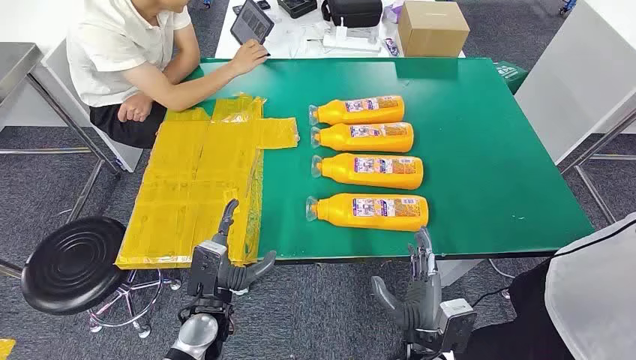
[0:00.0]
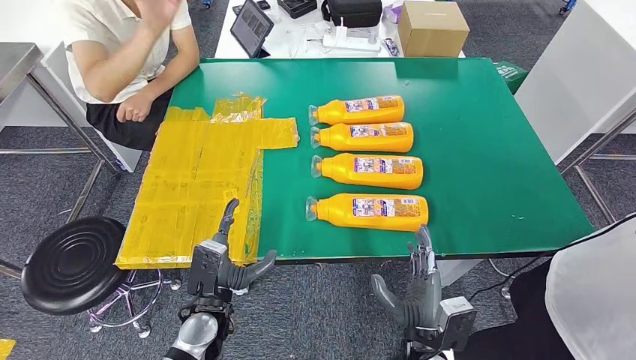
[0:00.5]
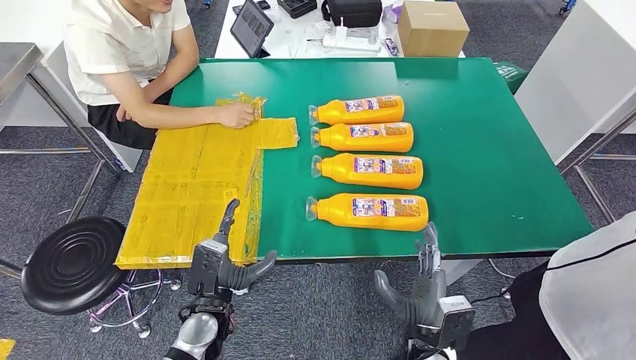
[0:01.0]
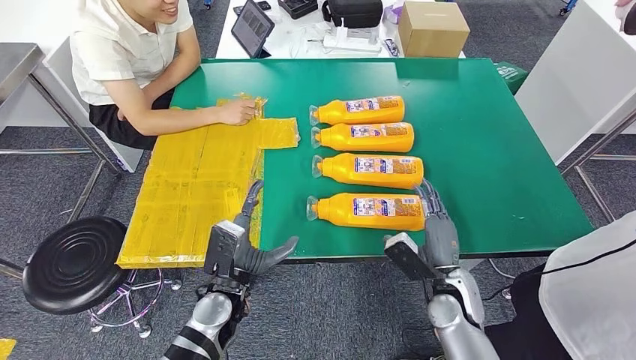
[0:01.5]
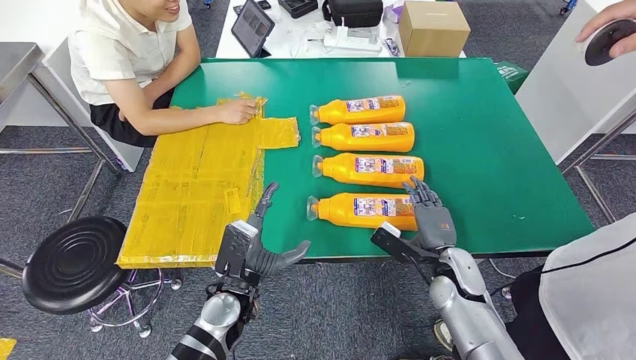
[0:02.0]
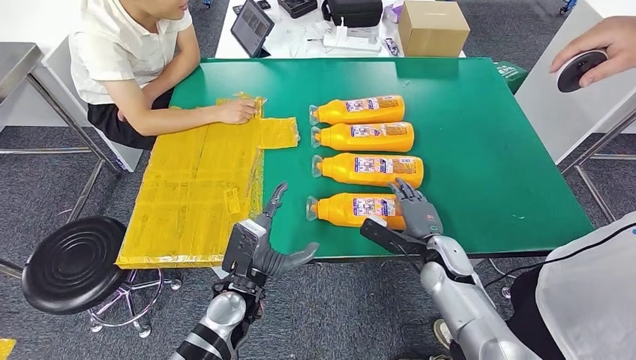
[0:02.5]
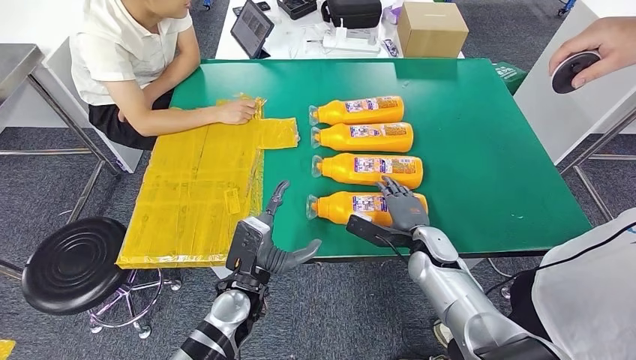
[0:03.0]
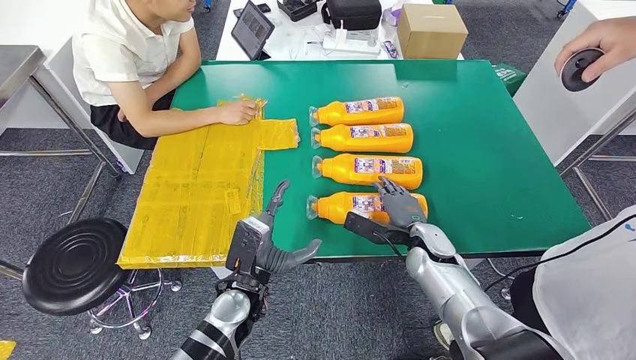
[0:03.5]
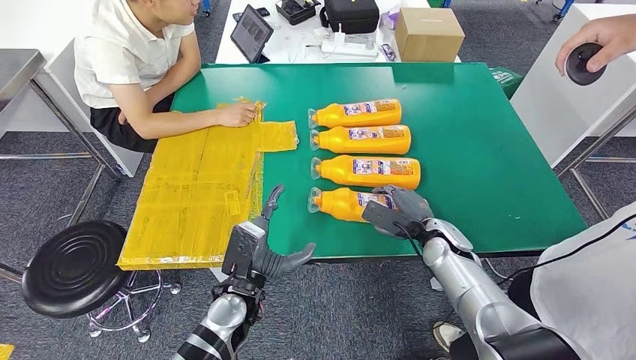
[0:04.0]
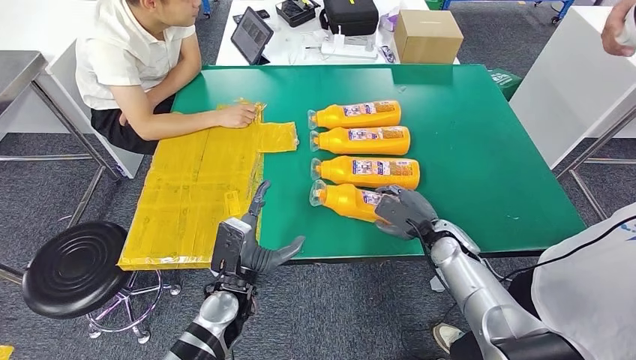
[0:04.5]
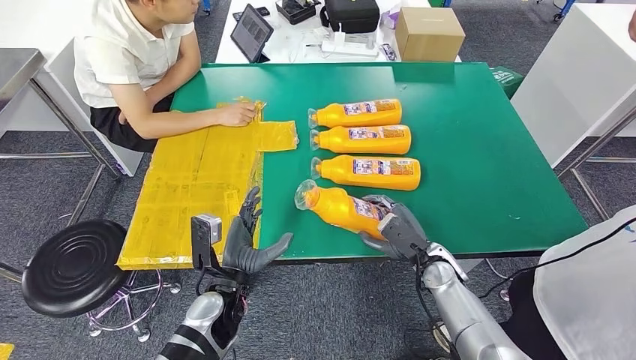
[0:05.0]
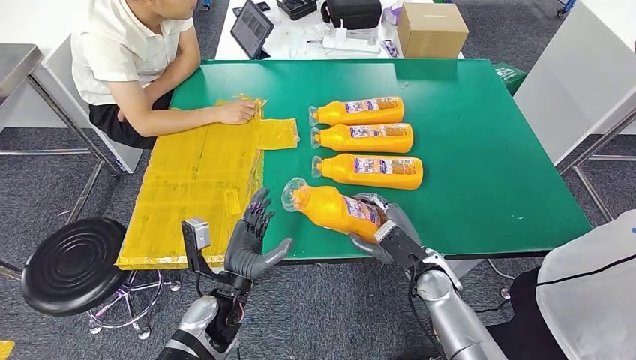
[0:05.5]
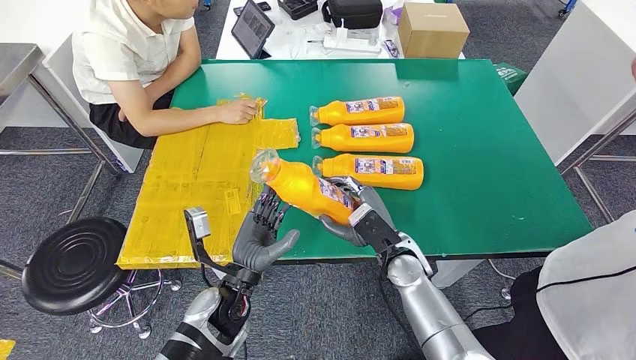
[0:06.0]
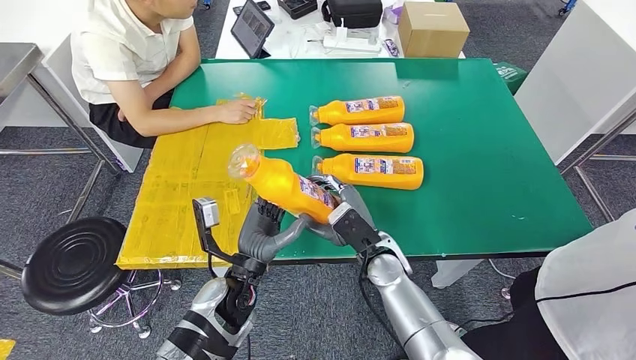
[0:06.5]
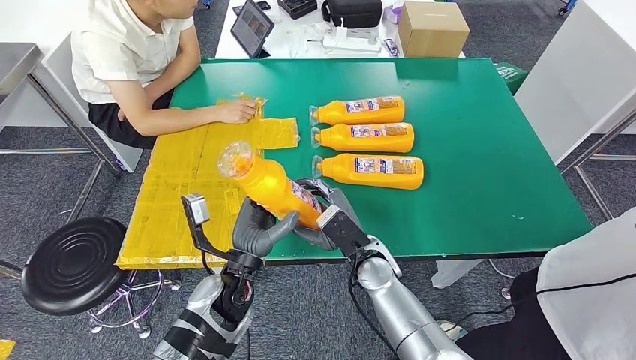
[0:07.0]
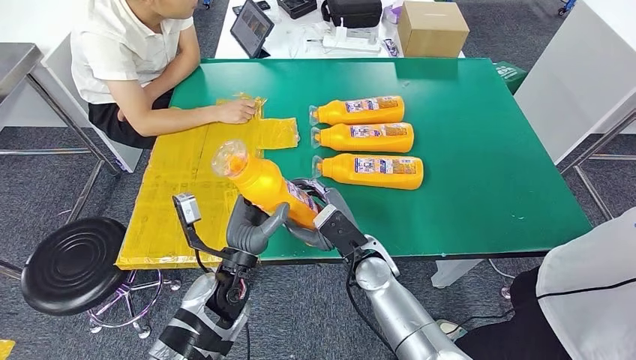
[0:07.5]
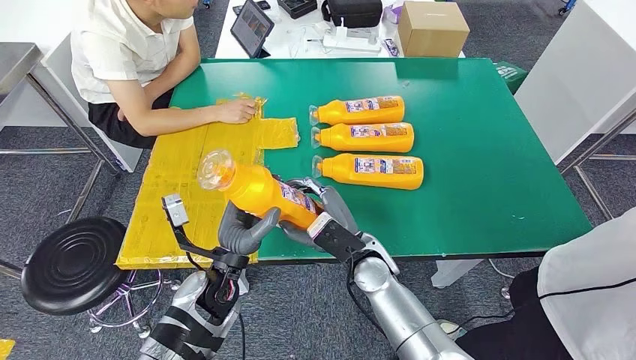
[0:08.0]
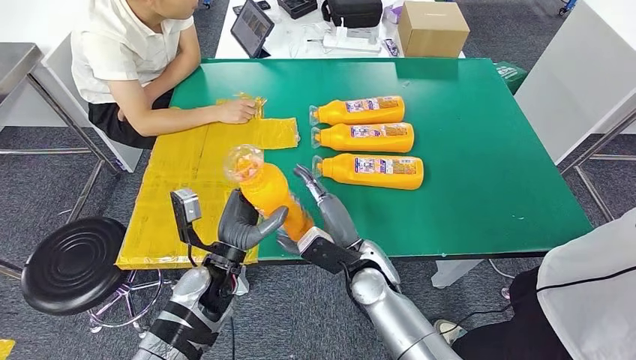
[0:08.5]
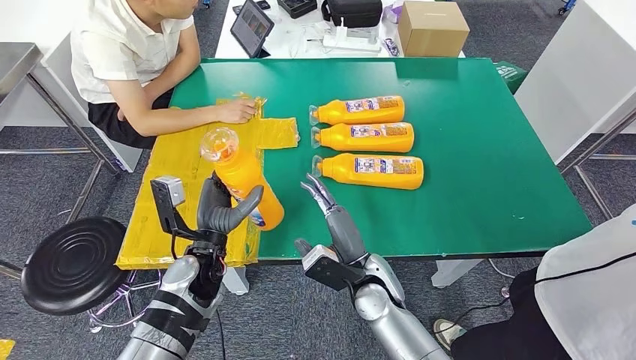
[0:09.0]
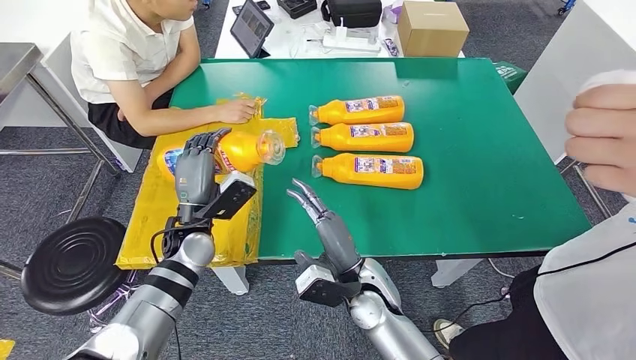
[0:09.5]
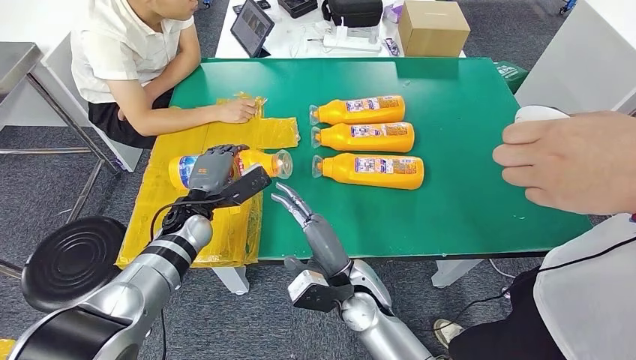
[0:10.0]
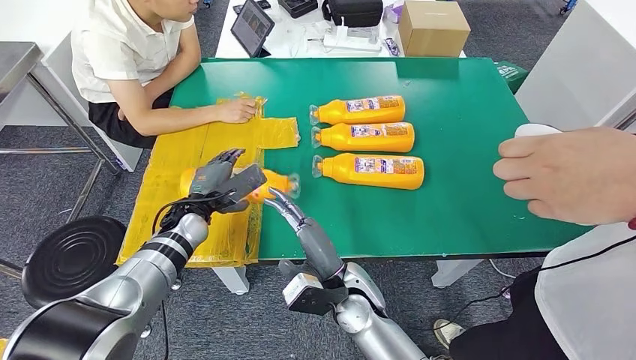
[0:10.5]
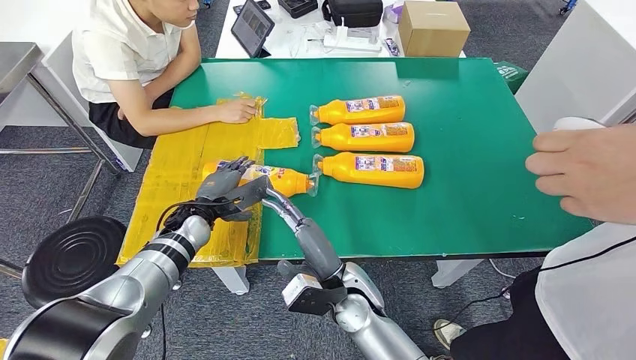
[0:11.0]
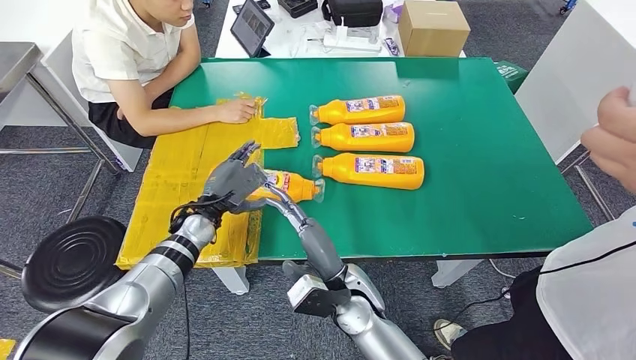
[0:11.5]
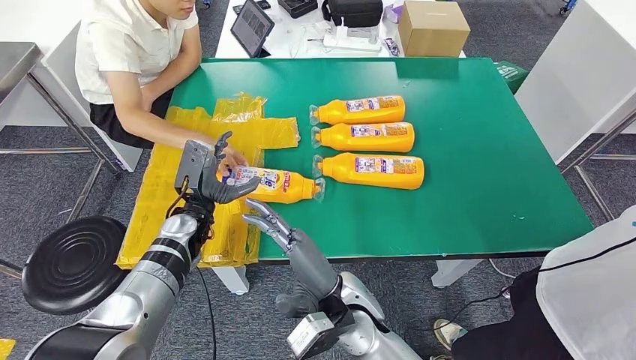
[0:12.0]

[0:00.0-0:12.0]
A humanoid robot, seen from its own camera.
Step, 0:00.0 to 0:05.0: Take the fast-moving consumer goods bottle from the table.
Step, 0:06.0 to 0:12.0: Flip the fast-moving consumer goods bottle to the front side.
0:06.0 to 0:08.0: The right hand travels to the left by approximately 5 cm.
0:10.0 to 0:12.0: The right hand shifts by roughly 5 cm.

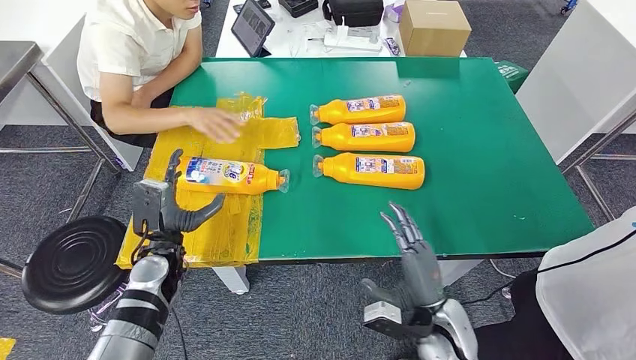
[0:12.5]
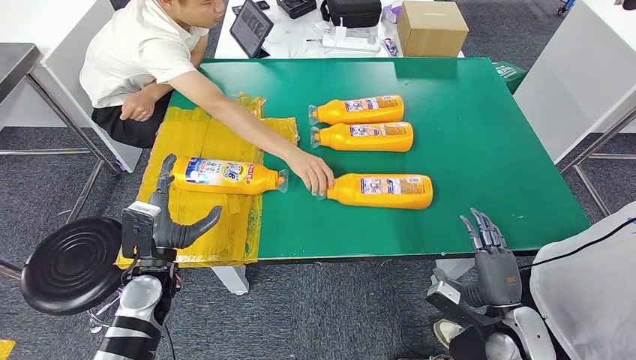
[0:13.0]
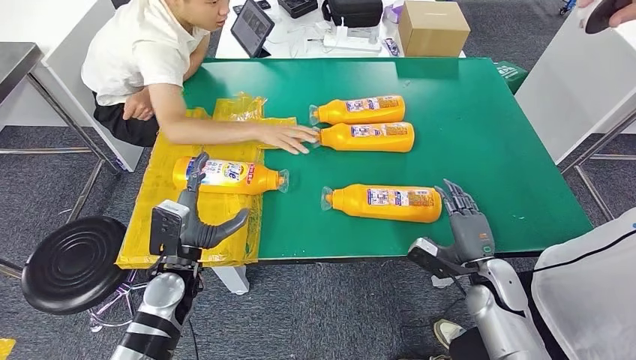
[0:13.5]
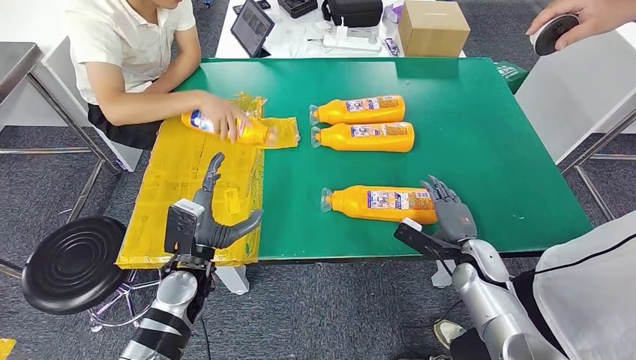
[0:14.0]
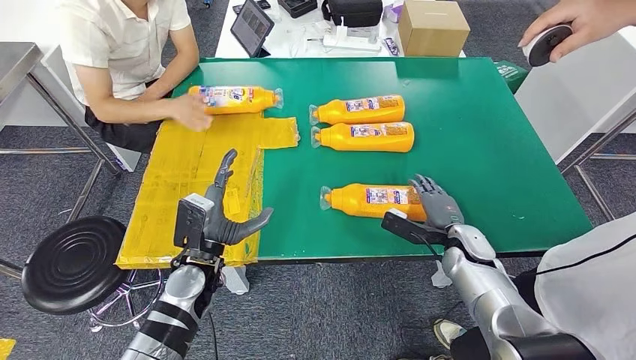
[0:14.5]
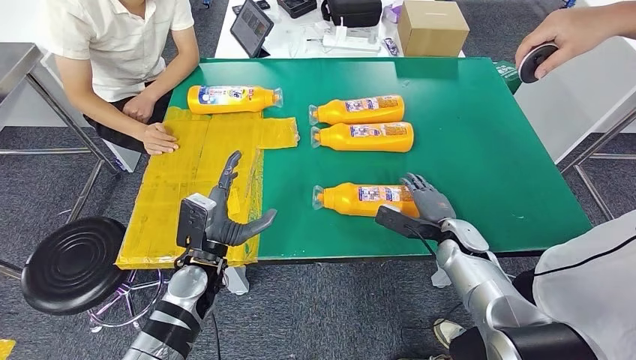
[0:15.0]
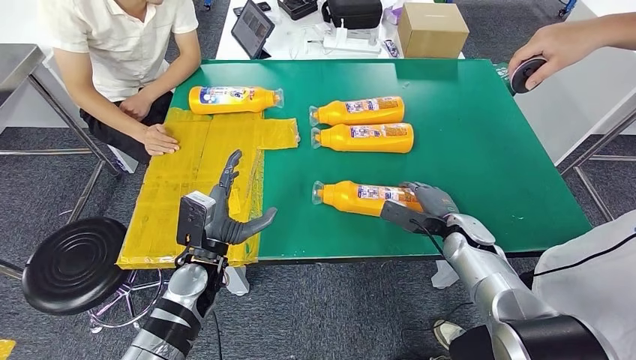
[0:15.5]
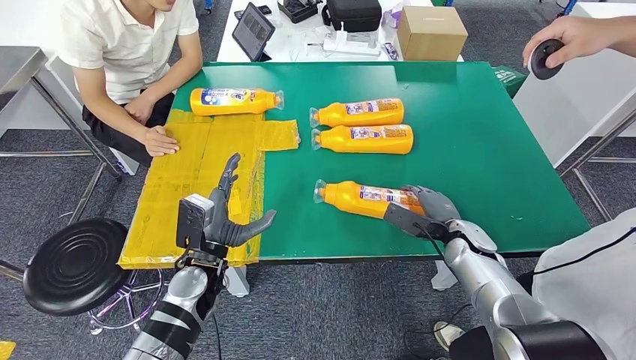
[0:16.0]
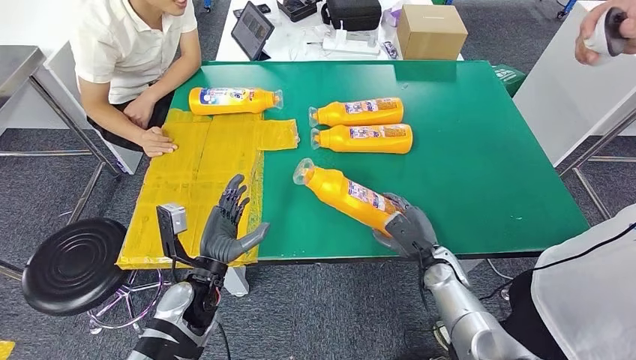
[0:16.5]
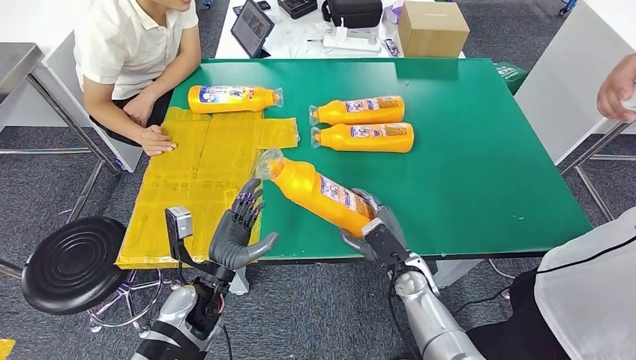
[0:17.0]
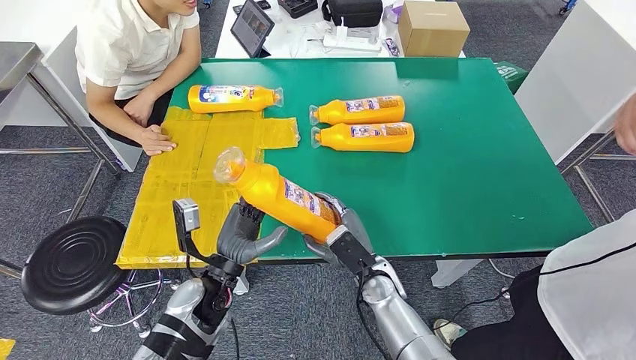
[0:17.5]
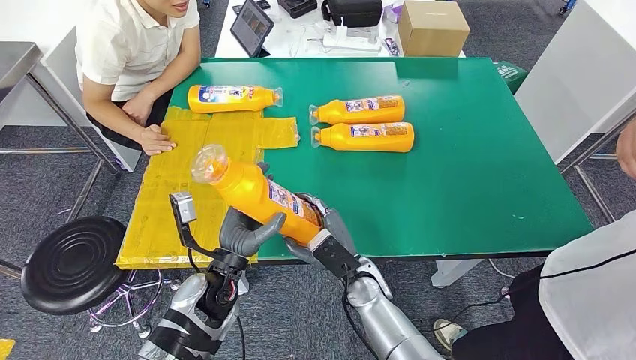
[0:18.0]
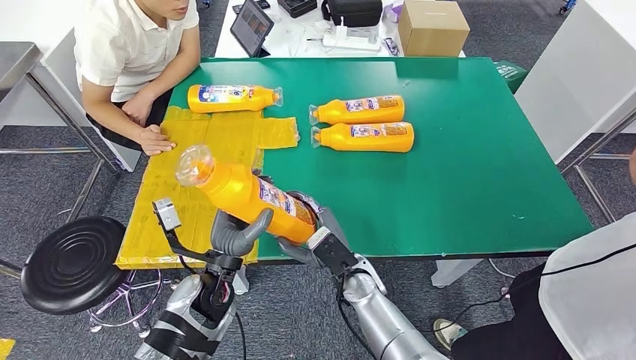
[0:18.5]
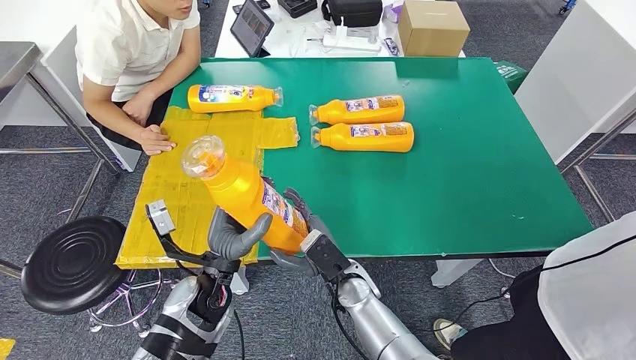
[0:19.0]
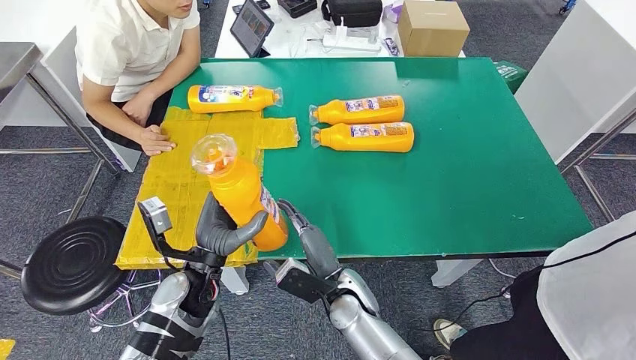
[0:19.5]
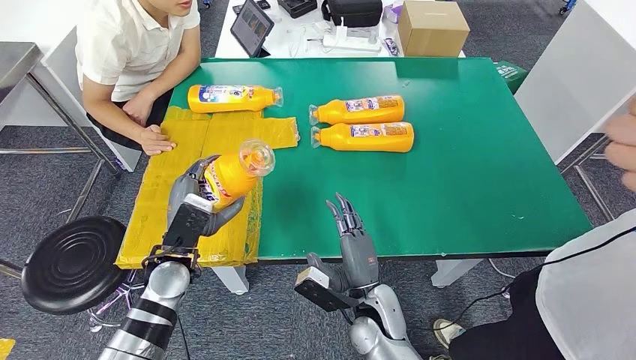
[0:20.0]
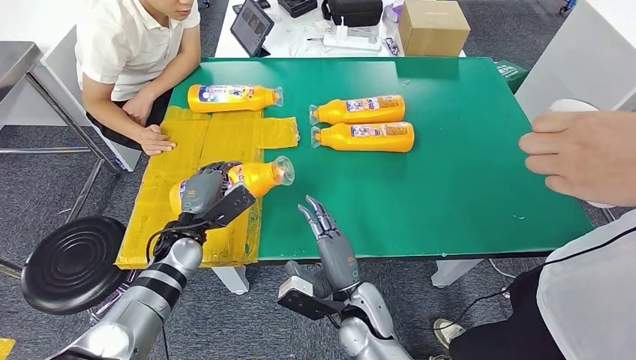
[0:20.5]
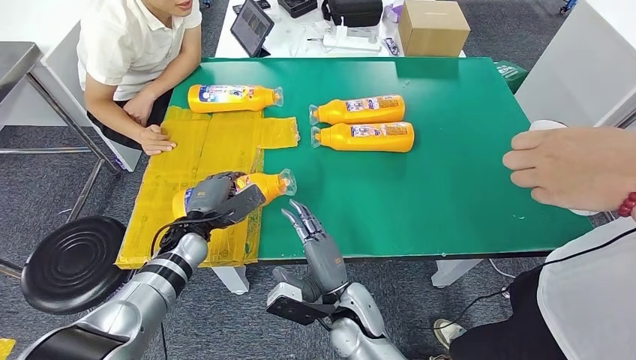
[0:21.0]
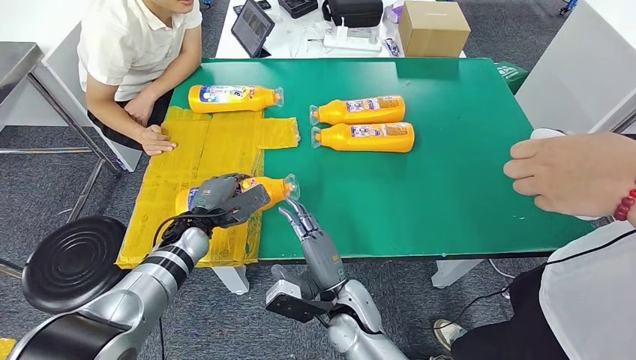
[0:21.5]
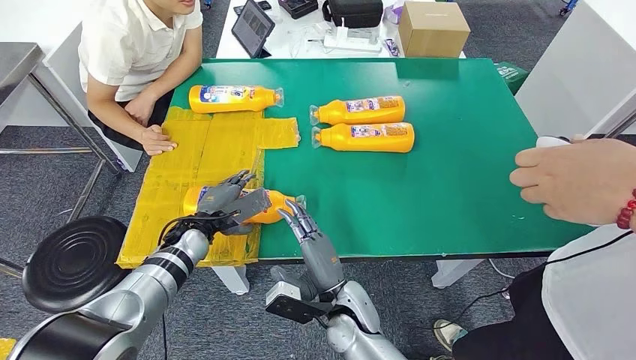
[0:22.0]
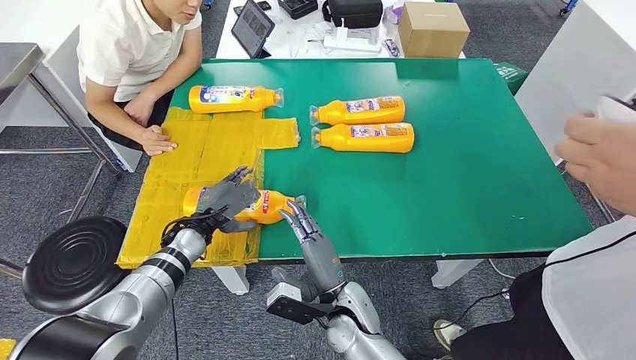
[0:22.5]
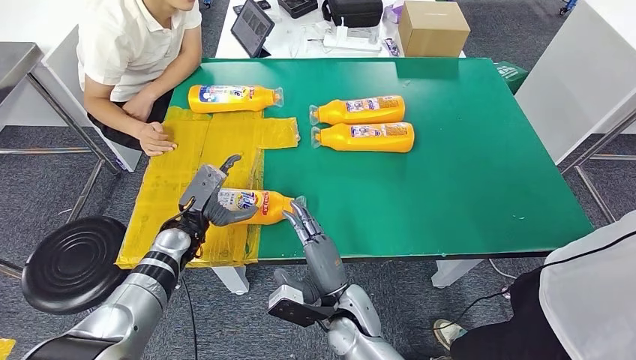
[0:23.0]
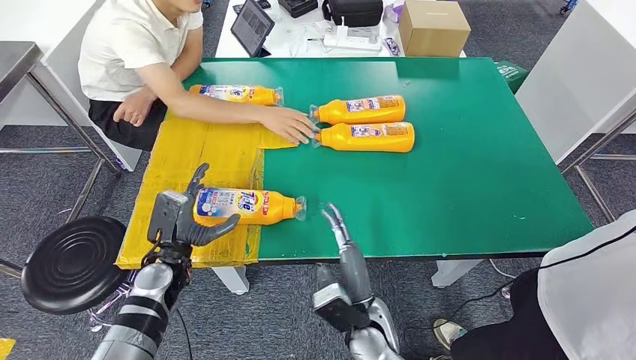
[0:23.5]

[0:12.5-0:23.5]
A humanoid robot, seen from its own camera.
Step, 0:12.5 to 0:16.5: Pick up the fast-moving consumer goods bottle from the table.
Step, 0:17.5 to 0:23.0: Flip the fast-moving consumer goods bottle to the front side.
0:18.0 to 0:20.0: The right hand is displaced backward by approximately 5 cm, while the left hand is displaced to the left by some 5 cm.
0:20.0 to 0:21.5: The left hand moves forward, roughly 10 cm.
